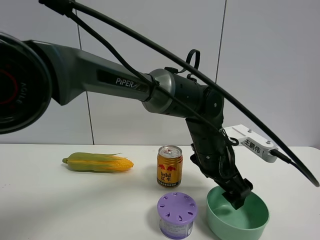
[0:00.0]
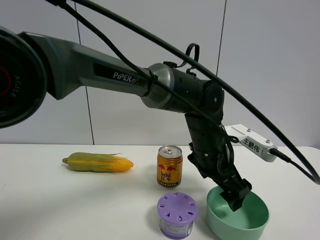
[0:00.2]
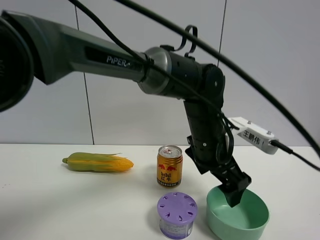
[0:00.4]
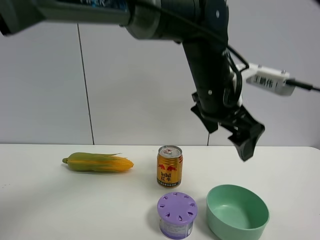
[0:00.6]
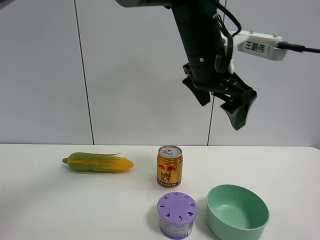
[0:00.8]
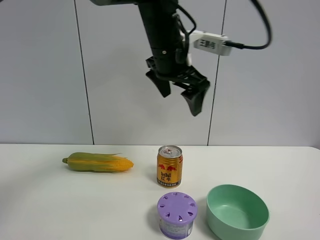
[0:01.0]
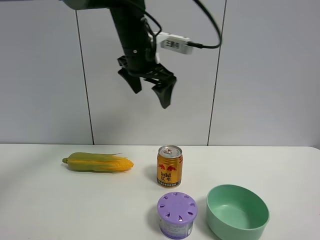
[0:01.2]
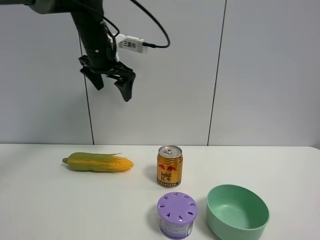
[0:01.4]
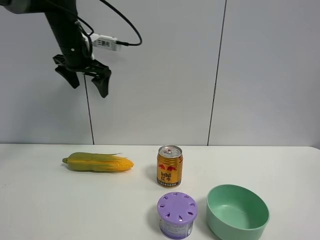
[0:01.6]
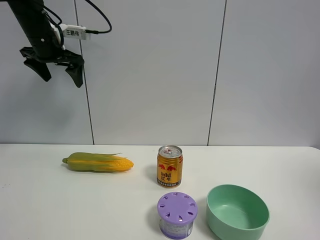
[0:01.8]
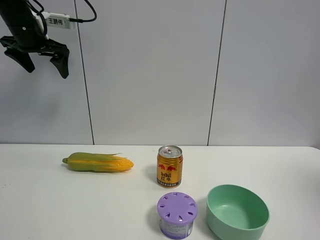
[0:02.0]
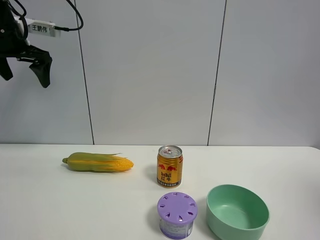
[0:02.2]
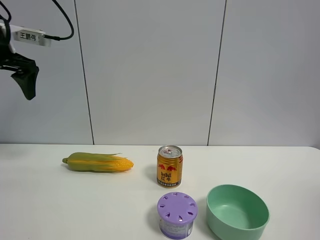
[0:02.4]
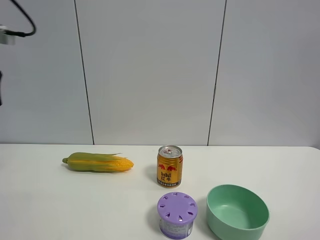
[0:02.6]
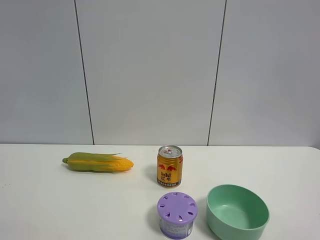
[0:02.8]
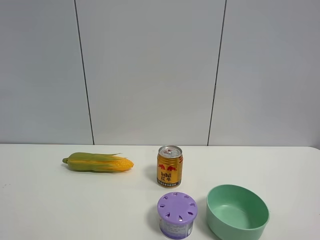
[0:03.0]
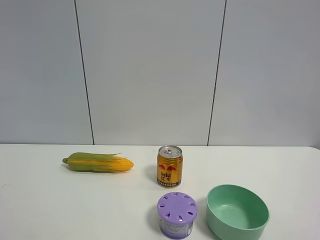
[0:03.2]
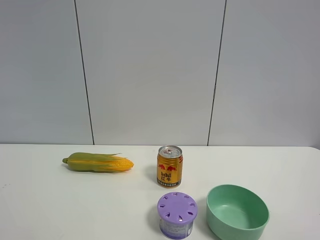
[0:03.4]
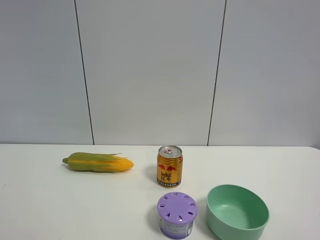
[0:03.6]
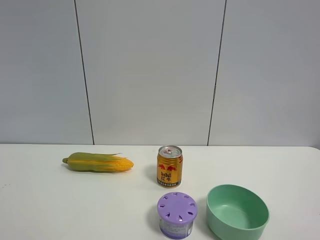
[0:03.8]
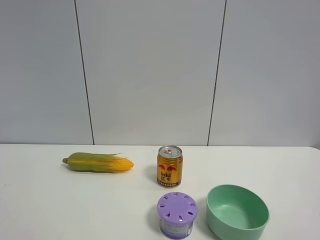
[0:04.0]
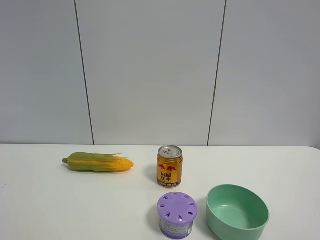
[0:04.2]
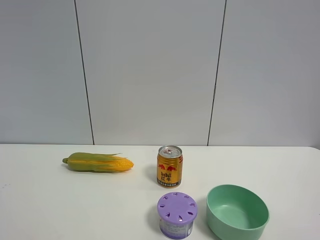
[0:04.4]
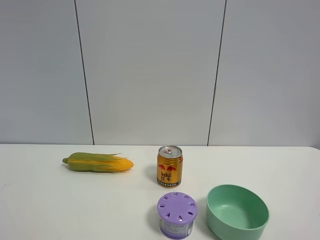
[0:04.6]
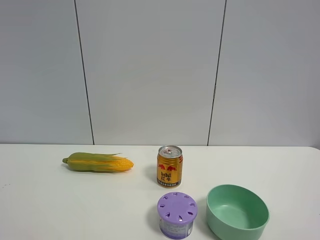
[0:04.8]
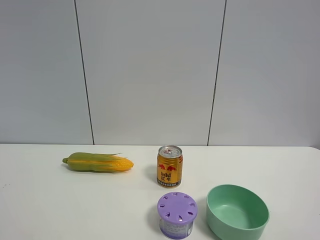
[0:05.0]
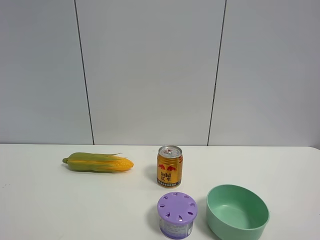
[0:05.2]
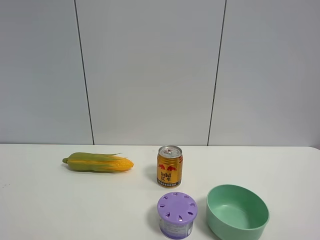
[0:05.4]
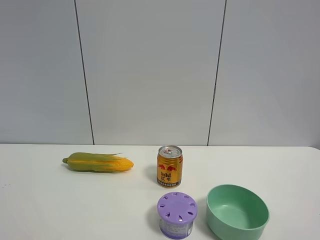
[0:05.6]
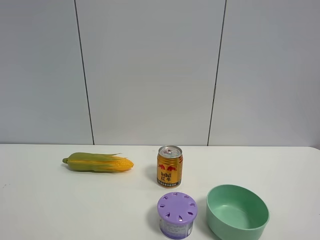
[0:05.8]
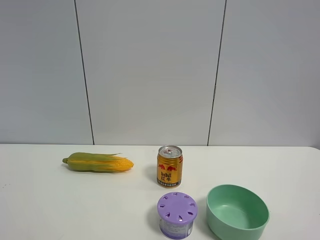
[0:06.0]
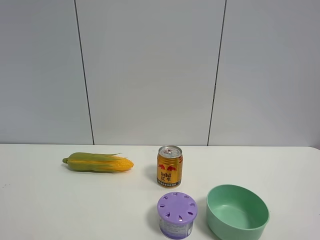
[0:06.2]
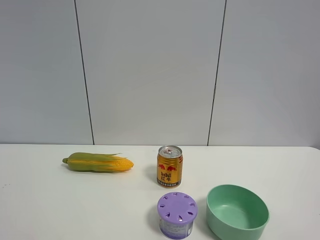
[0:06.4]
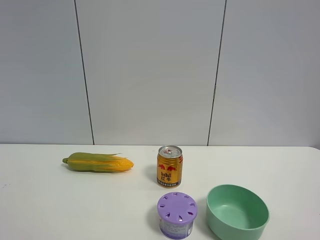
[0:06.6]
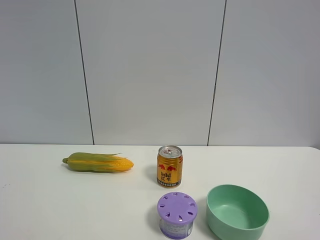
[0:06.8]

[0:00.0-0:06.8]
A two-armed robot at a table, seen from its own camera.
Task of the whole recording: the gripper move the object.
0:00.0 to 0:01.4: The left gripper shifts about 35 cm to the left, upward and forward.
0:01.4 to 0:02.8: The left gripper shifts roughly 35 cm backward and to the left.
0:05.4 to 0:06.8: Both grippers stay about where they are.

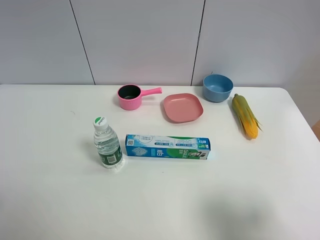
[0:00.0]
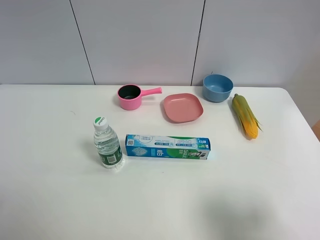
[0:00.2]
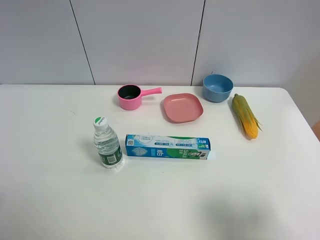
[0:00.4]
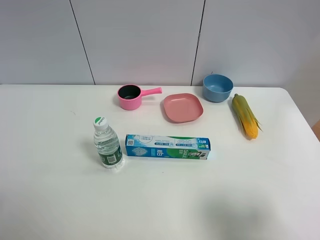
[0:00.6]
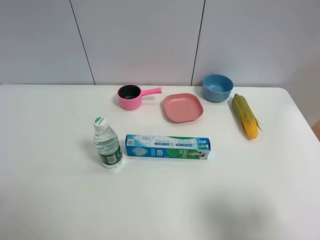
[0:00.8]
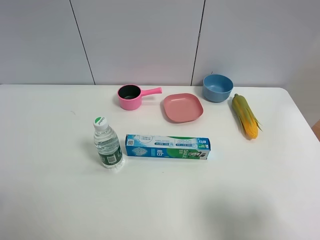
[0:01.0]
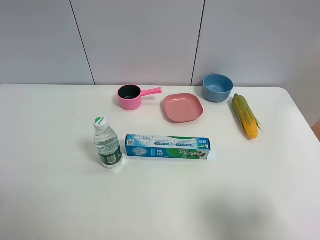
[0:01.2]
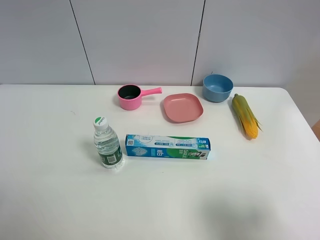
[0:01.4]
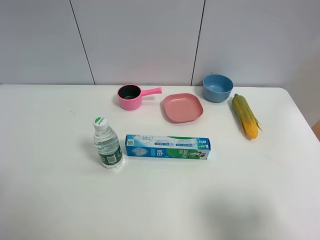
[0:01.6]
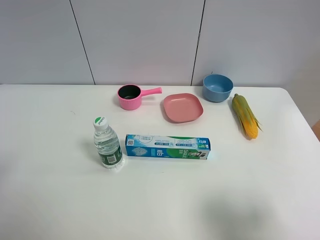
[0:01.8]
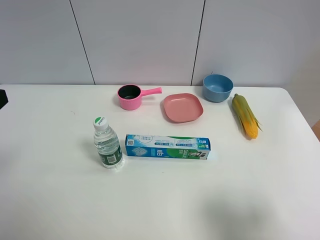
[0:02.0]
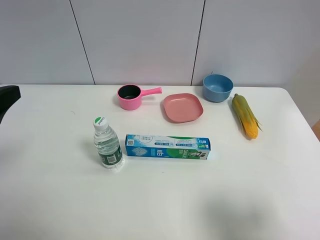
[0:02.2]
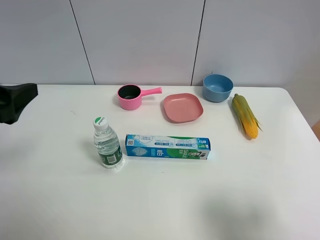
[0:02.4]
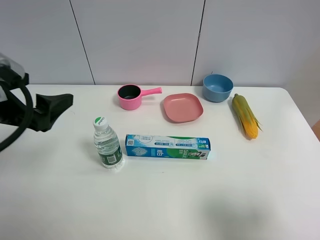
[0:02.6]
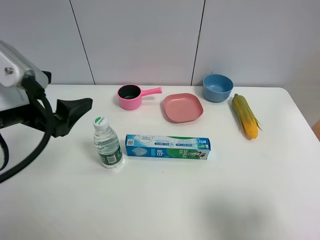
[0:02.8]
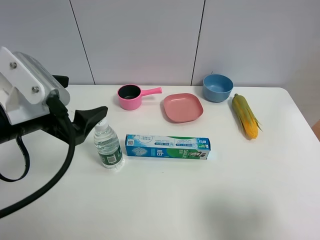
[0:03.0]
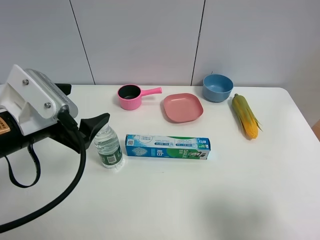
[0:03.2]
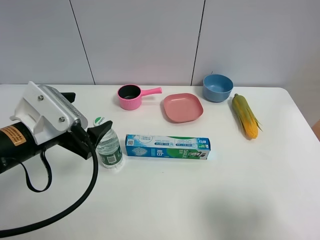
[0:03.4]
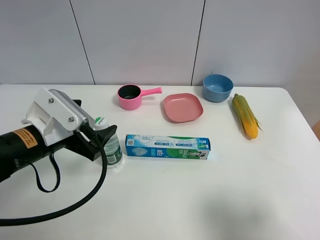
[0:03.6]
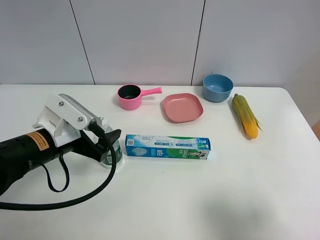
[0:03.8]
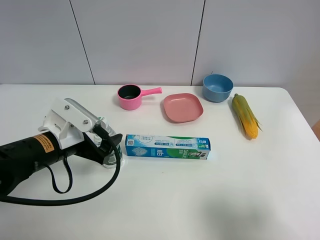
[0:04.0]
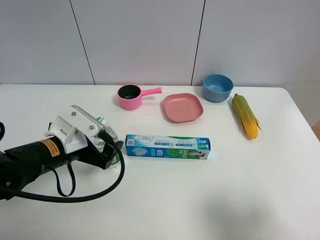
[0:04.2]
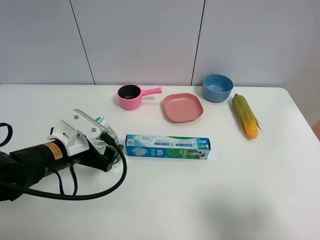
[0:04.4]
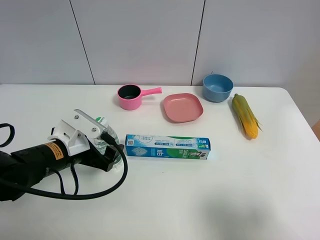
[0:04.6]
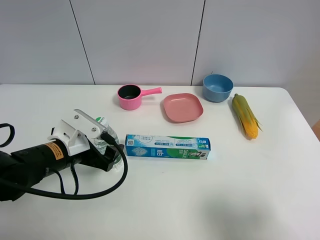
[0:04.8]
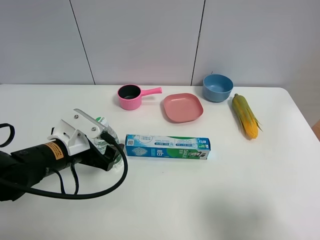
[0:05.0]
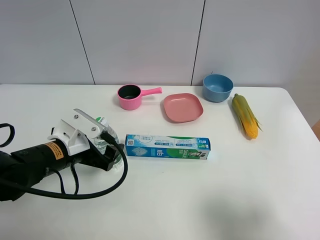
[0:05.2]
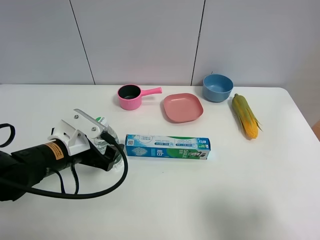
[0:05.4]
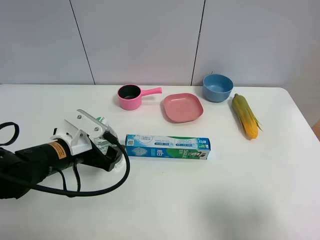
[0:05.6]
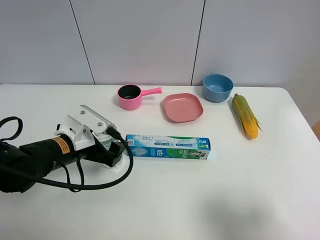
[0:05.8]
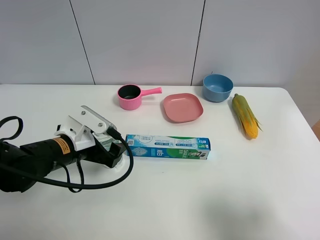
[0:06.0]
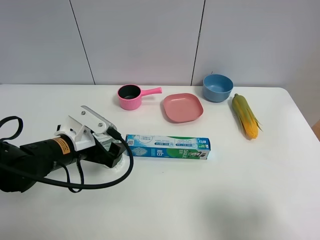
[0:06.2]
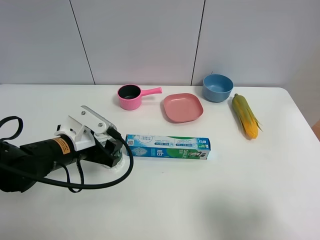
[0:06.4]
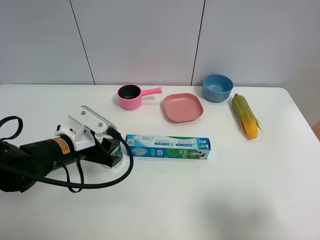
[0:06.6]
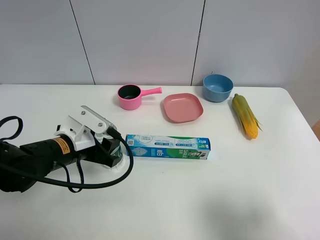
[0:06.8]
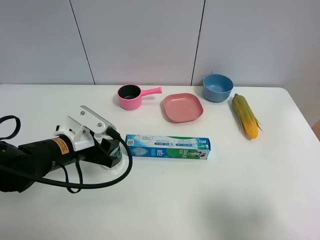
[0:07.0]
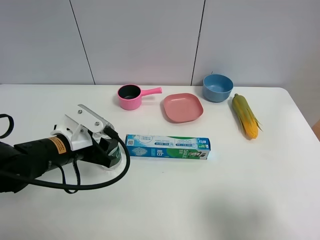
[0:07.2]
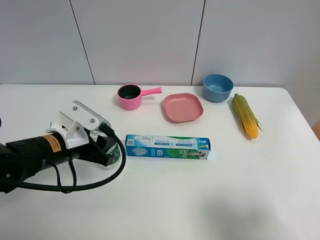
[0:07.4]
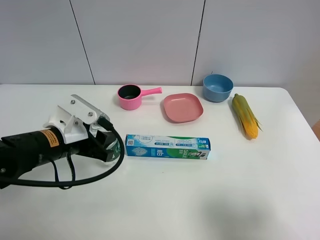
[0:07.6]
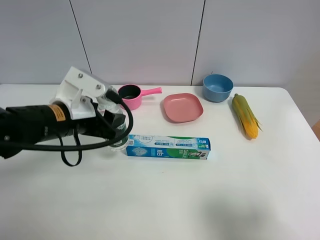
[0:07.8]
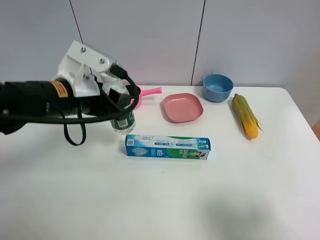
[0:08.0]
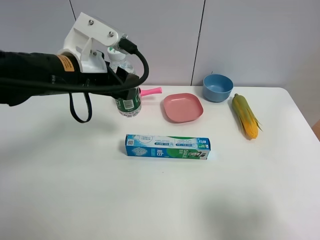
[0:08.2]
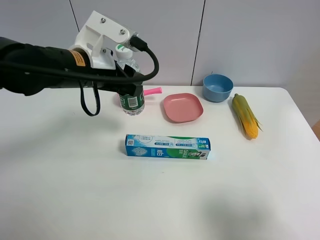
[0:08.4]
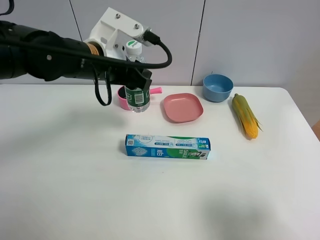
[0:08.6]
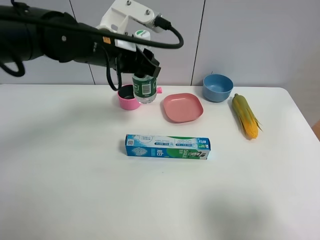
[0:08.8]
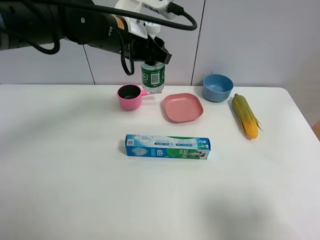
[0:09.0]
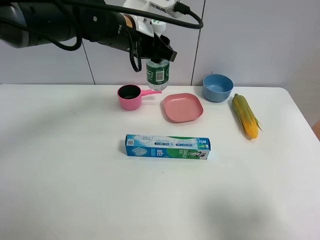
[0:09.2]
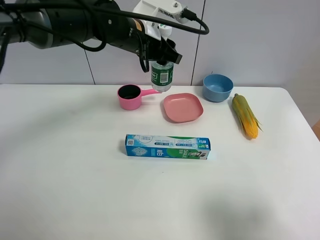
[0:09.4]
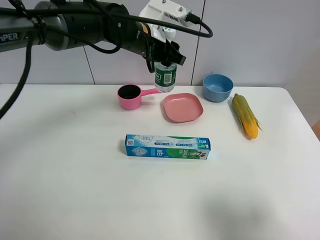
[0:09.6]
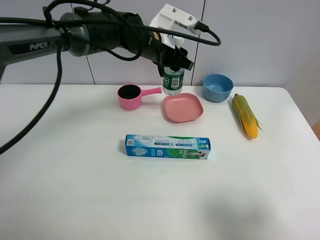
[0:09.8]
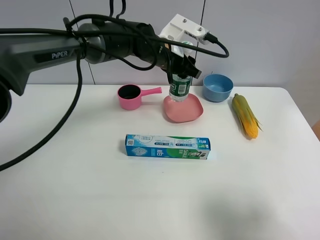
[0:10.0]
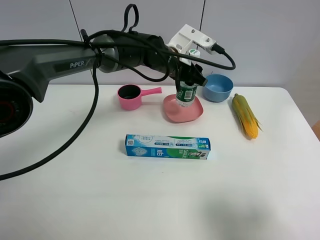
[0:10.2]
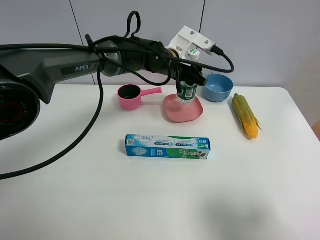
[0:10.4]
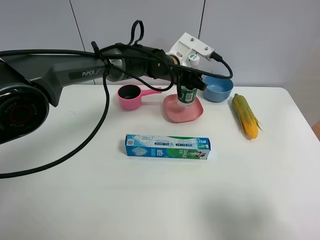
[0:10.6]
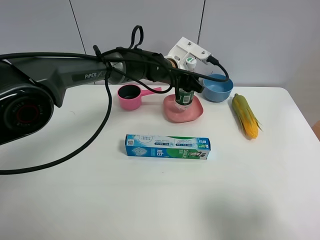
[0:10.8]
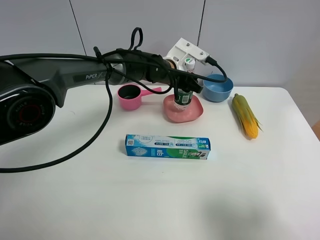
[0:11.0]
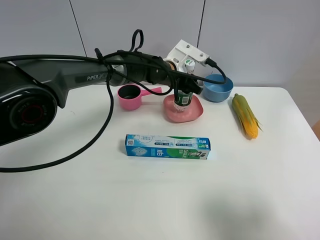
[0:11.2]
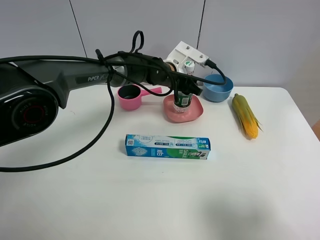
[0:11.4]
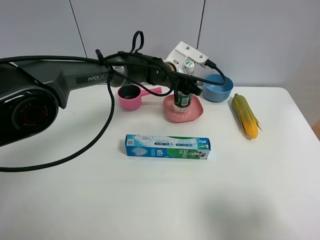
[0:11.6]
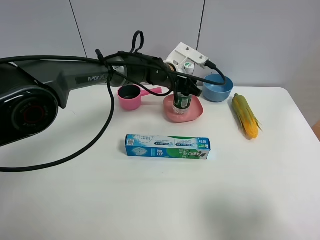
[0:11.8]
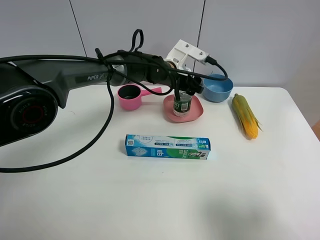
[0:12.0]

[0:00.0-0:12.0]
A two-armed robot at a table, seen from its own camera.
Task of the whole recording: the gripper move the object.
Step, 0:00.0 to 0:06.4: Grasp the YiBao mineral water with the left gripper.
0:01.6 to 0:03.0: The left gripper goes approximately 15 cm forward and to the right.
0:03.0 to 0:04.4: The left gripper goes roughly 10 cm downward.
0:04.4 to 0:06.0: The grippers stay close to where they were, moving slightly.
0:06.0 to 0:07.6: The left gripper closes up.
0:07.6 to 0:09.0: The left gripper is displaced forward, upward and to the right by approximately 20 cm.
0:09.0 to 0:10.4: The left gripper moves to the right, downward and forward, some 15 cm.
0:10.4 to 0:12.0: The left gripper opens.

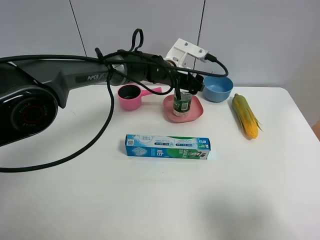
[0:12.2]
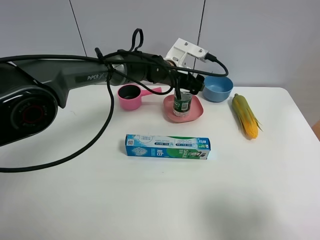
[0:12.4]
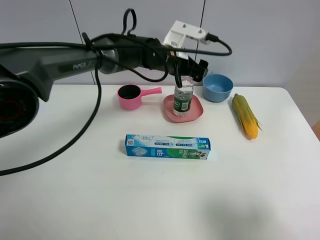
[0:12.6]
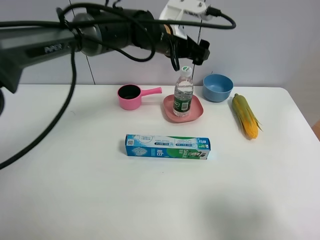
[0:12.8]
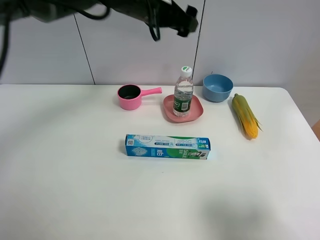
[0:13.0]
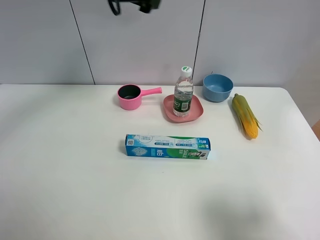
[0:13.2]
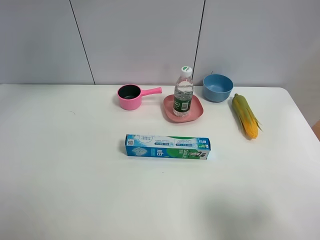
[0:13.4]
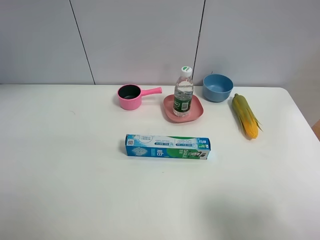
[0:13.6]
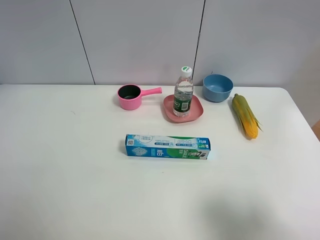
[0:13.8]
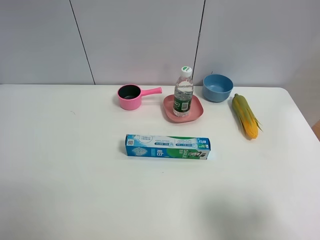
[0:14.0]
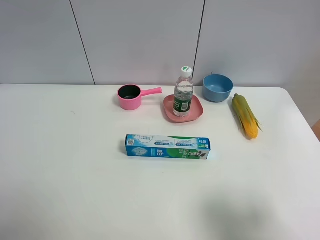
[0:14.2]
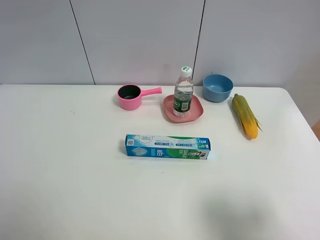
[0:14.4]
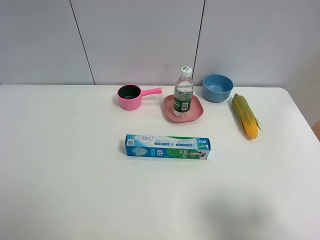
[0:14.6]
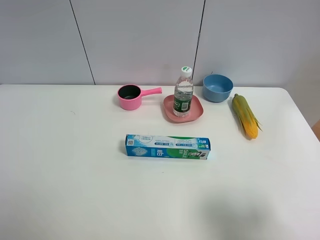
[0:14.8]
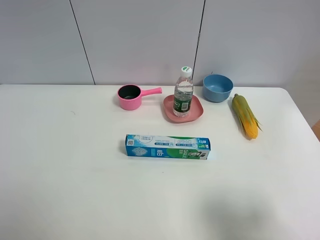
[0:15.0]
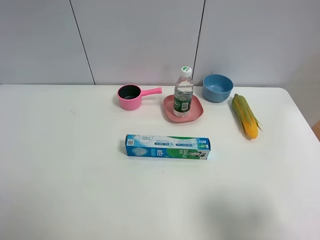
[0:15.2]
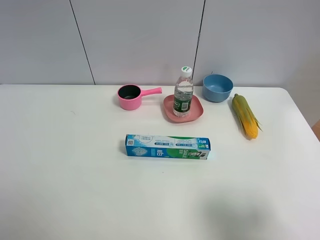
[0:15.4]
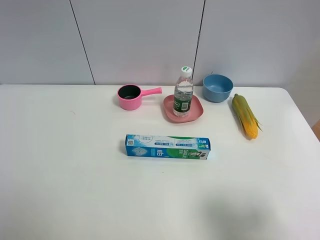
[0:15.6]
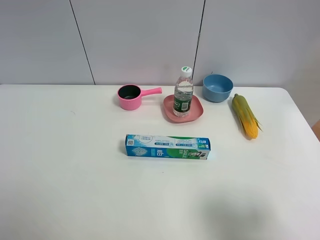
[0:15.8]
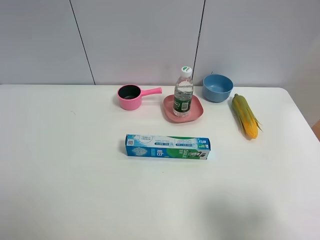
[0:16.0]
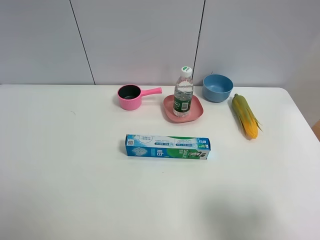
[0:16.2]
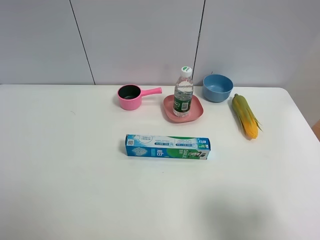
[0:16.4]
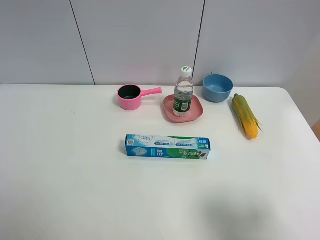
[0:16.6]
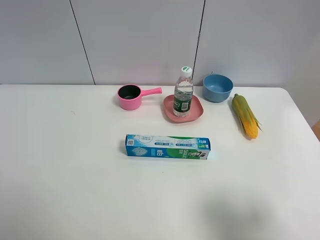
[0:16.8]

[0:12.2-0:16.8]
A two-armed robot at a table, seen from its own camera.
Task of the whole recording: the gripper move the object.
0:12.2 to 0:13.8: The left gripper is displaced to the left, upward and backward by about 50 cm.
